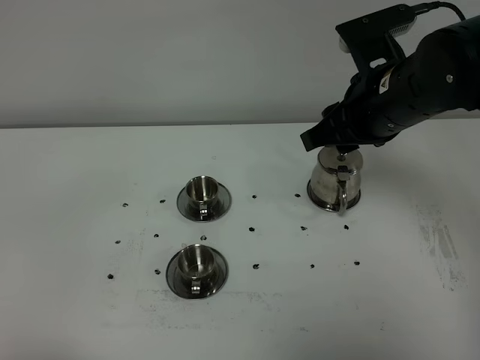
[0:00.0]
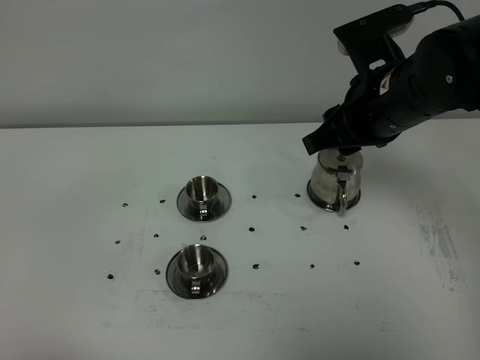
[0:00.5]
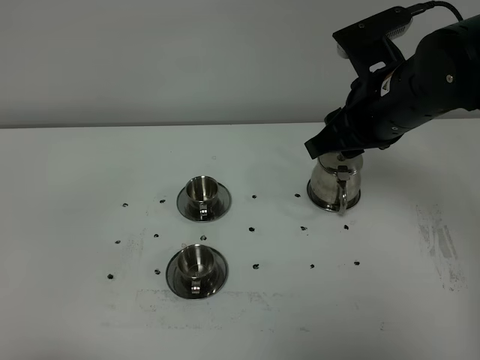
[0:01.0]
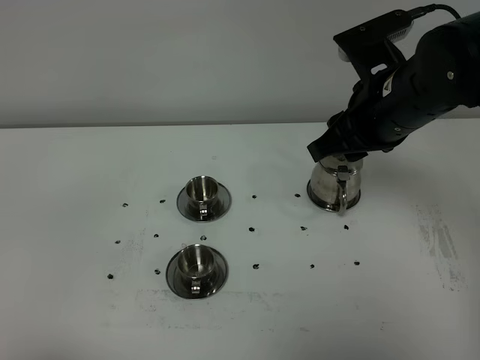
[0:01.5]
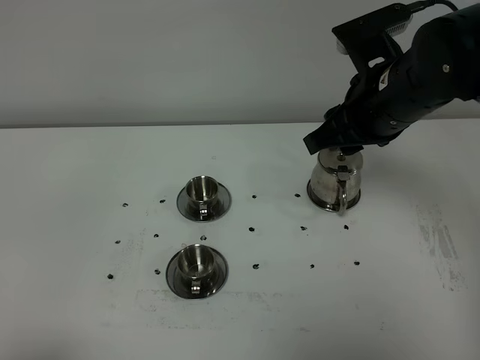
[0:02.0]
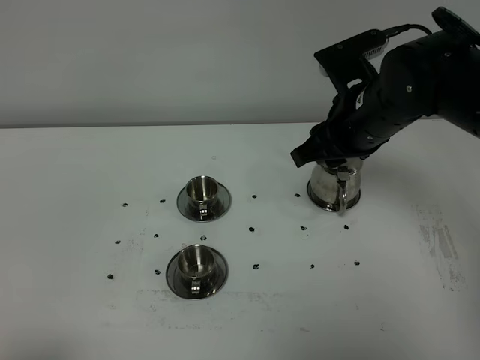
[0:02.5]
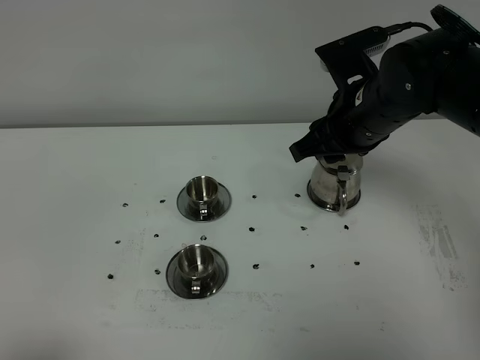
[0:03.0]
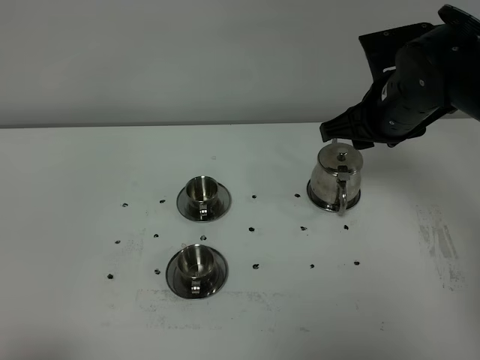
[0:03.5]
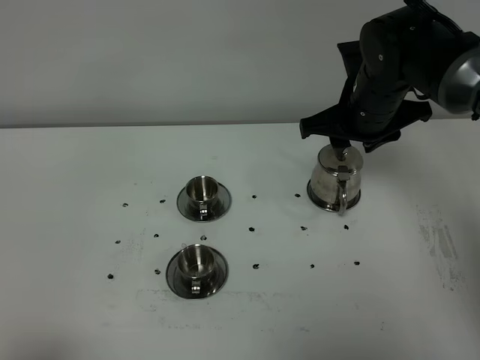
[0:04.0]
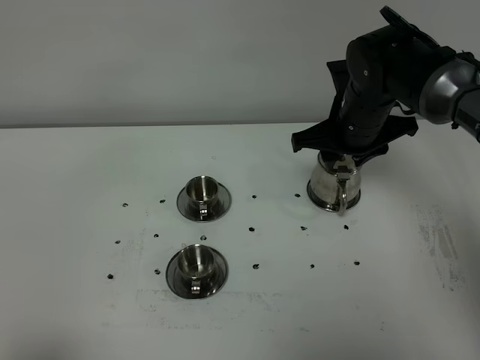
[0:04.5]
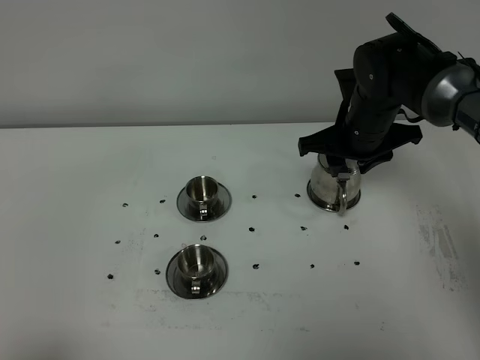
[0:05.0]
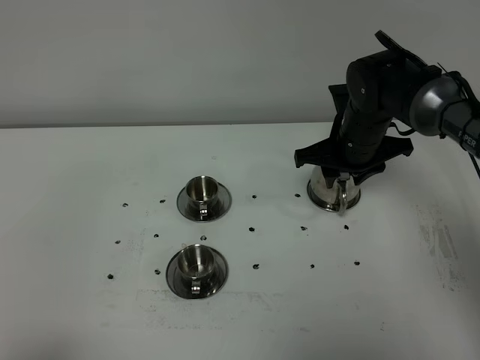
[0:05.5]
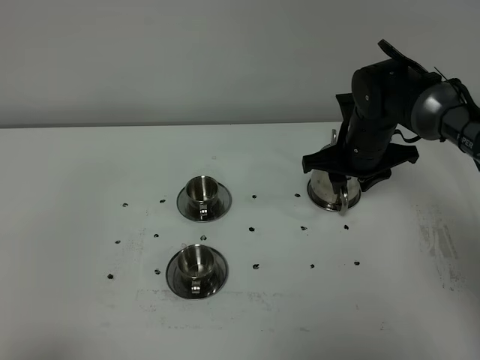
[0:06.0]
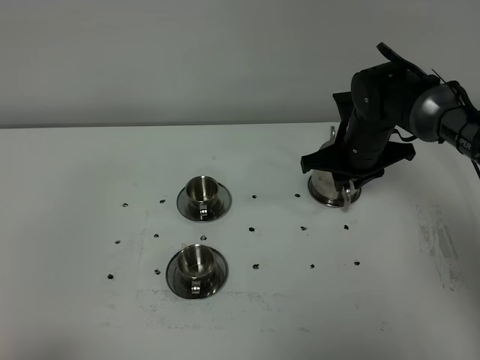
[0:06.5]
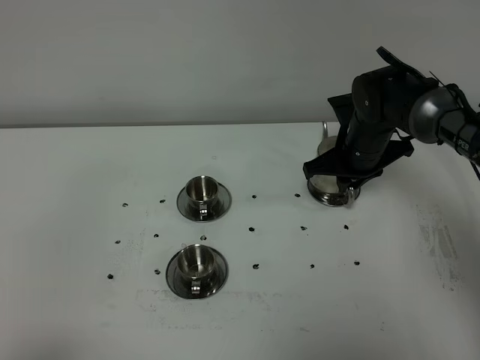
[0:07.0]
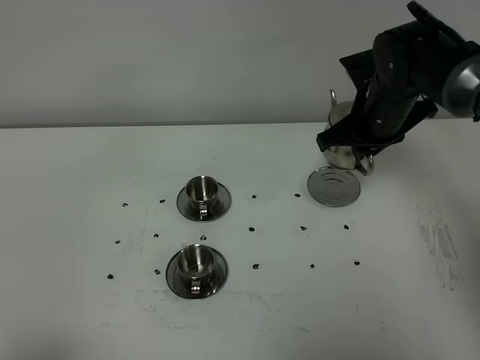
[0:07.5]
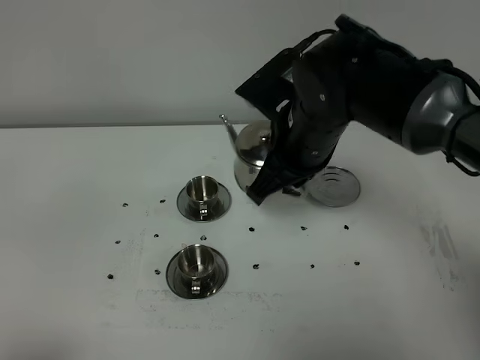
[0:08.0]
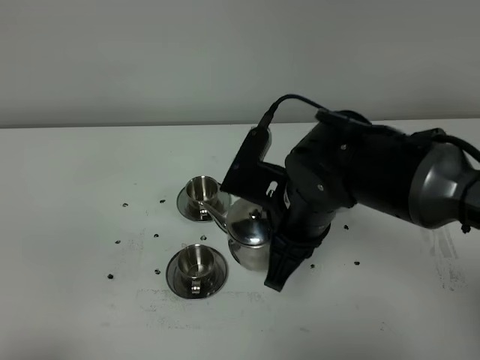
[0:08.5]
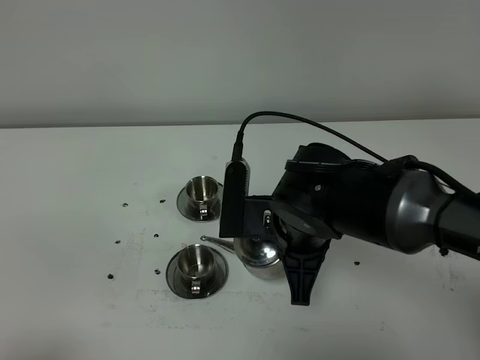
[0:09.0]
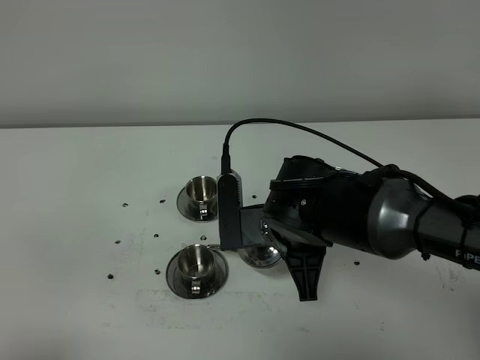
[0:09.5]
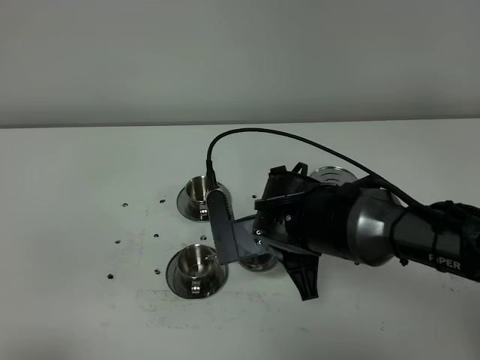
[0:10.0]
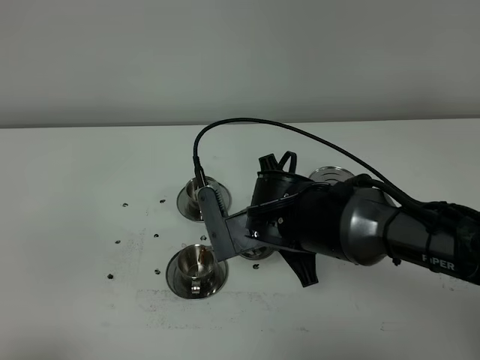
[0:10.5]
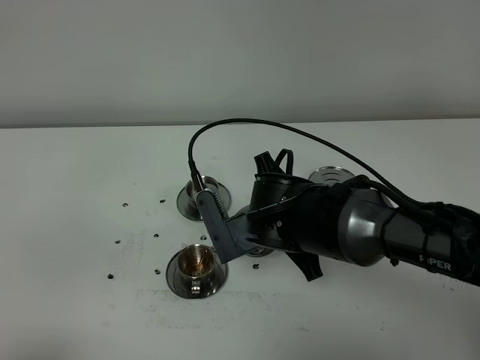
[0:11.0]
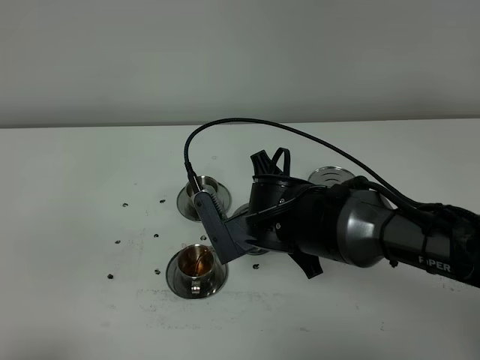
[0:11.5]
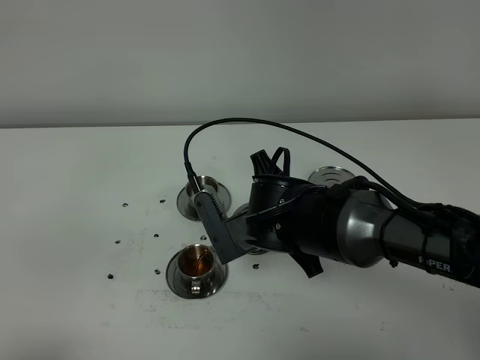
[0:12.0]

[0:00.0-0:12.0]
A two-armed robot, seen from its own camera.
Task of the whole recording: grasp the stainless steel teapot and pour the tea into the two stainless steel teacups one by one, put the stainless steel teapot back in its original place.
Step, 0:00.0 to 0:07.0: Pick up the teapot with the right gripper.
0:00.0 to 0:02.0: The grippers make only small movements.
0:02.0 to 0:04.0: The right gripper moves forward and downward, some 10 cm.
0:04.0 to 0:06.0: The right gripper shifts approximately 10 cm downward.
0:06.0 to 0:08.0: The right gripper shifts roughly 20 cm upward, to the left and backward, and closes its fingers.
0:08.0 to 0:10.0: The right gripper shifts some 10 cm downward.
0:10.0 to 0:12.0: There are only small adjustments of the grippers.

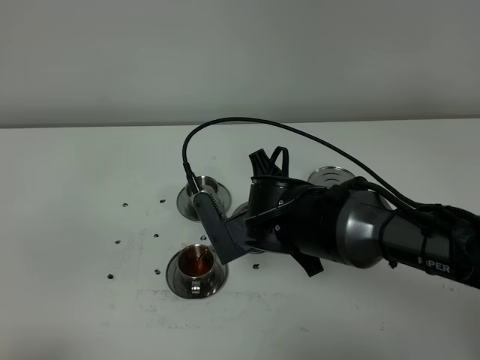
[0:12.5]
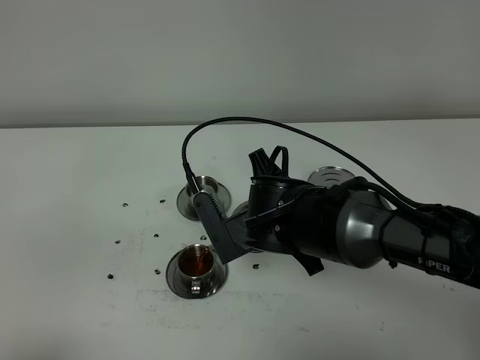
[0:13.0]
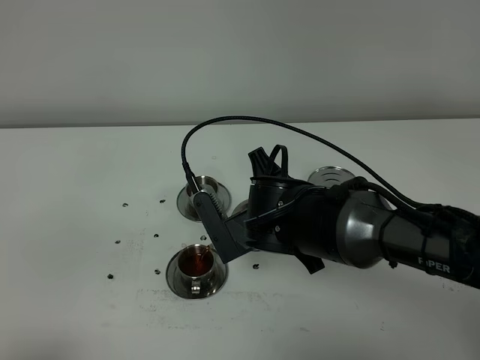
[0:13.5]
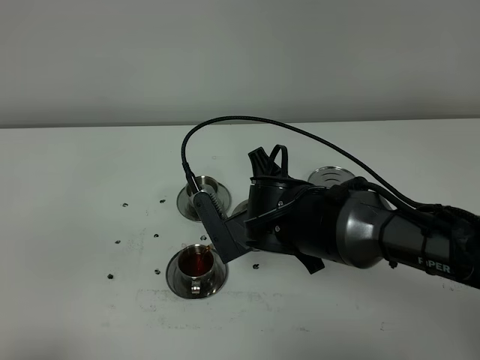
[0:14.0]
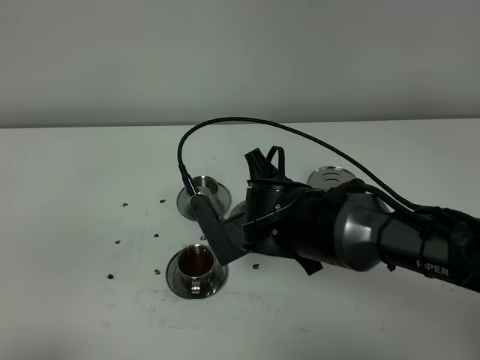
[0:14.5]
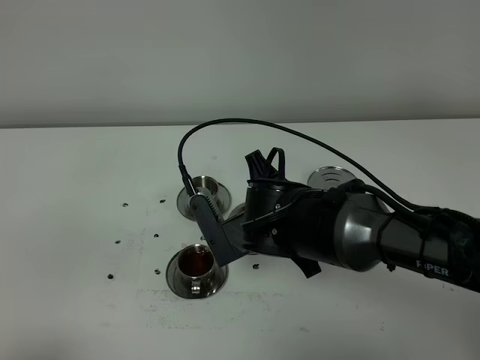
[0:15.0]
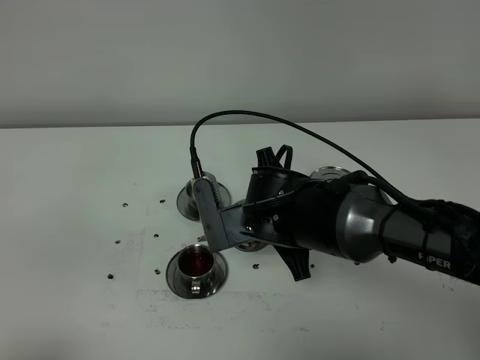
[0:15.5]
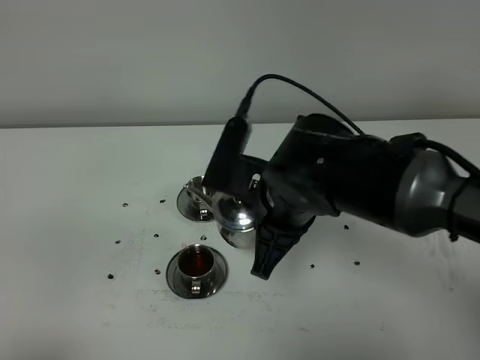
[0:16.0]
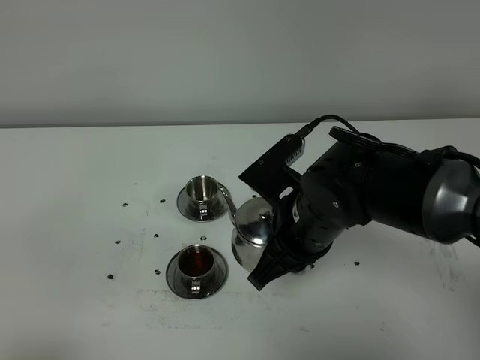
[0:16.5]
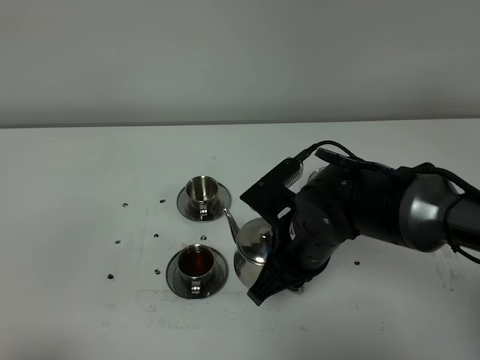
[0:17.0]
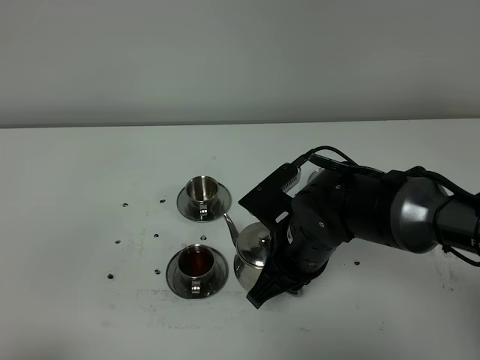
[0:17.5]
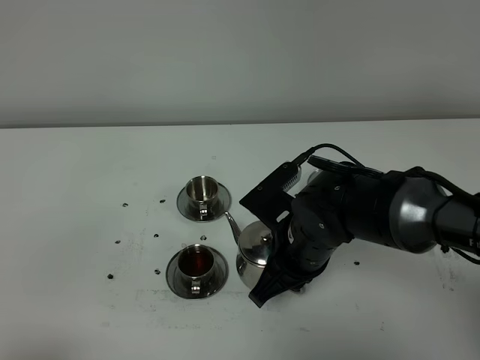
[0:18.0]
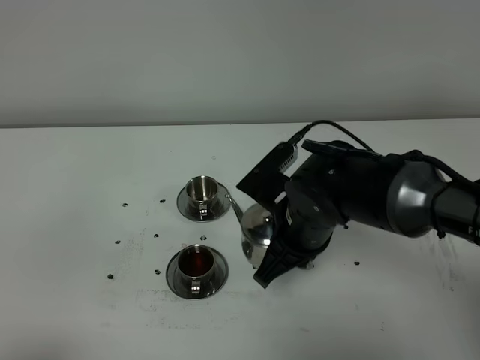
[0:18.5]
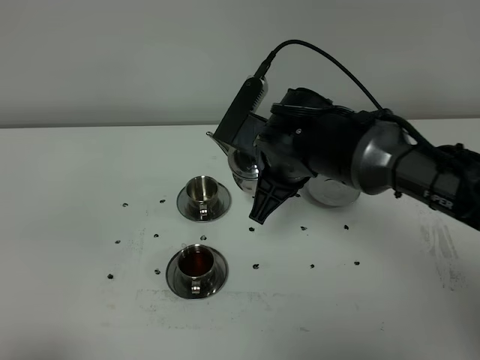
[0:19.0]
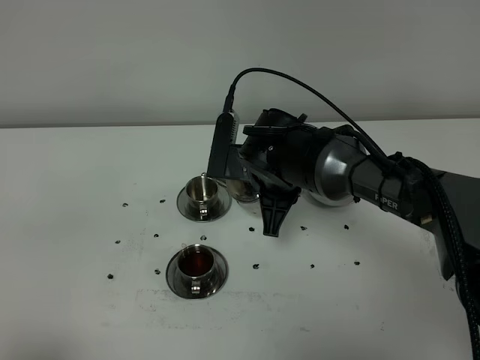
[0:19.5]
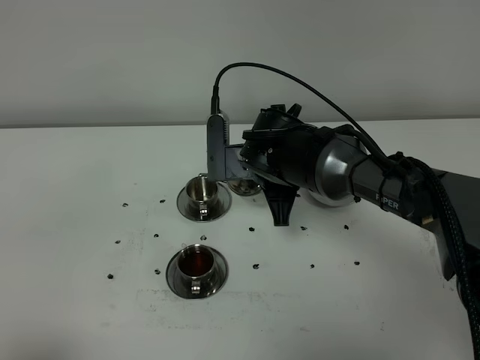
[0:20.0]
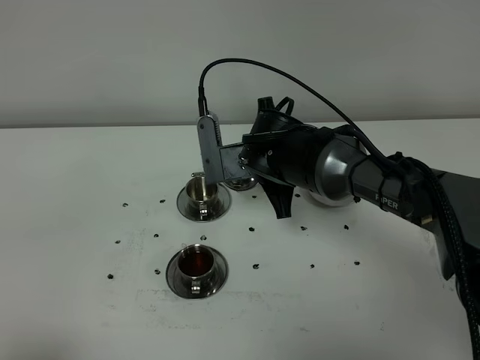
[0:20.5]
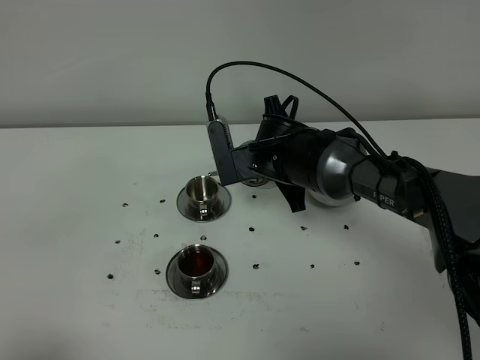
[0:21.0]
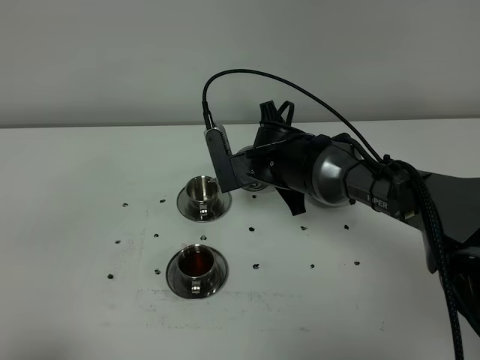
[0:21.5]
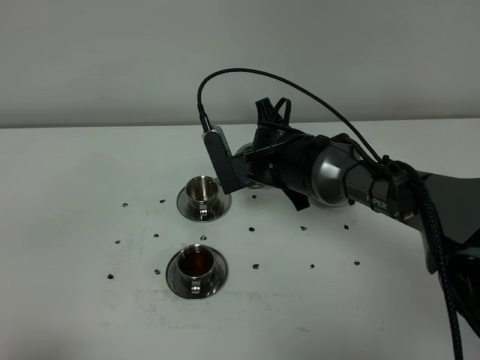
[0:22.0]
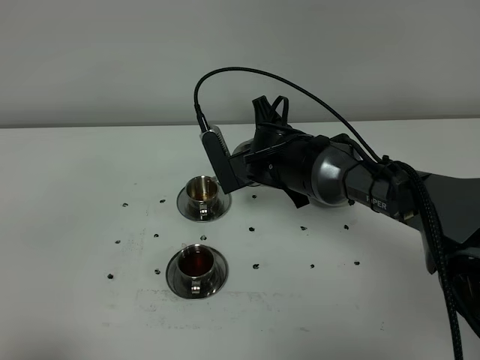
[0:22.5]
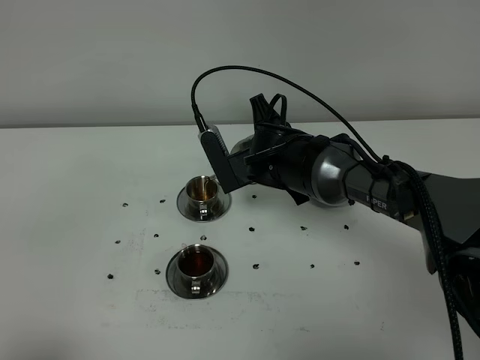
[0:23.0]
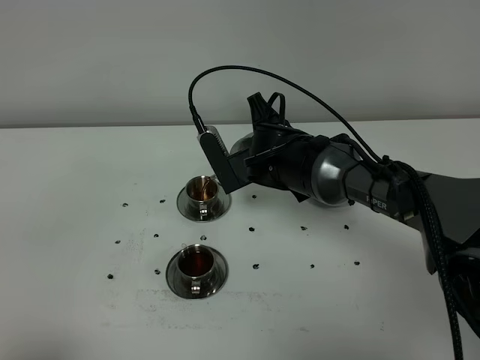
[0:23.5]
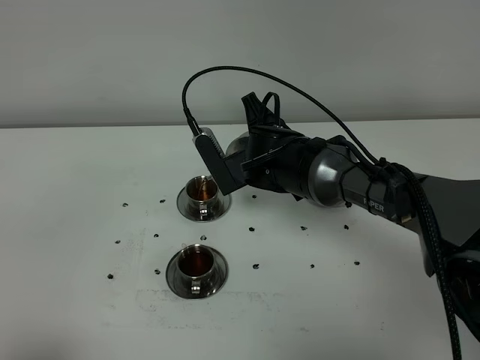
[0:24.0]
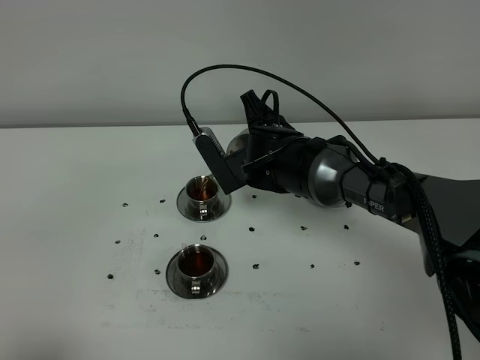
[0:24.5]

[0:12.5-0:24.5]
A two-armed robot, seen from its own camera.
Task of the whole recording: grasp the stainless steel teapot and pour the tea into the two stainless steel teacups one by one, put the stainless steel teapot back in its original place.
0:12.5 to 0:14.5: Both grippers stay about where they are.
0:16.5 to 0:18.5: The grippers make only small movements.
0:18.5 to 0:20.5: The right gripper heads forward, covering approximately 10 cm.
0:20.5 to 0:22.5: The grippers stay close to where they were, moving slightly.
0:22.5 to 0:24.5: The grippers stay close to where they were, moving slightly.

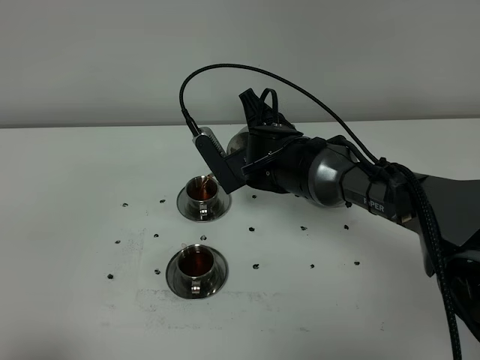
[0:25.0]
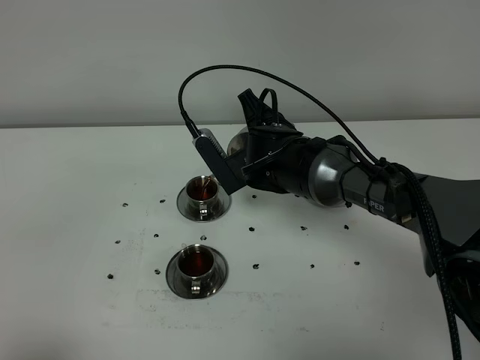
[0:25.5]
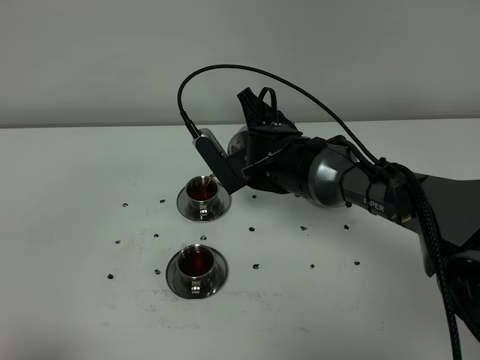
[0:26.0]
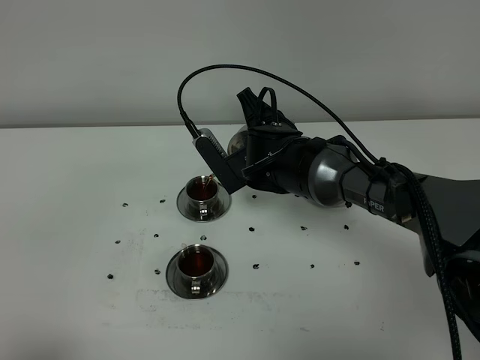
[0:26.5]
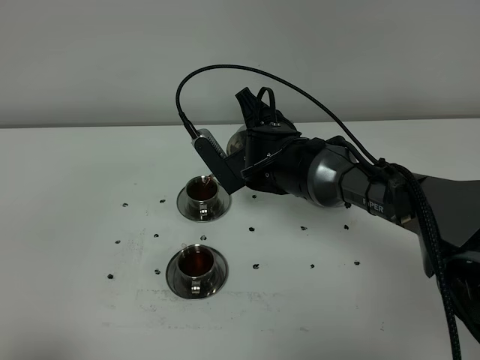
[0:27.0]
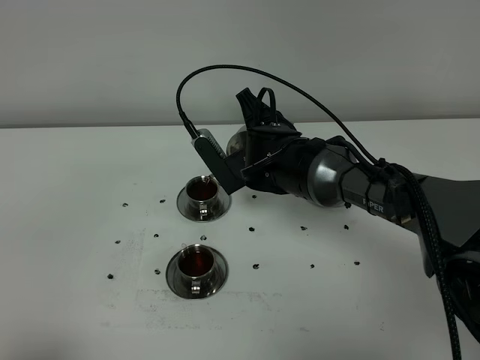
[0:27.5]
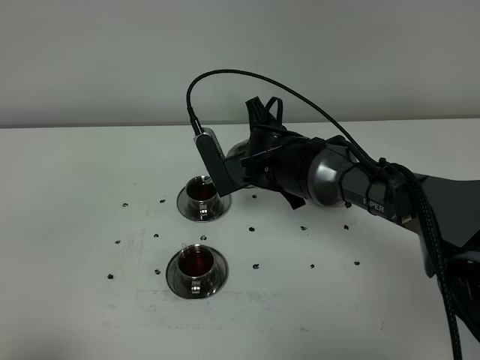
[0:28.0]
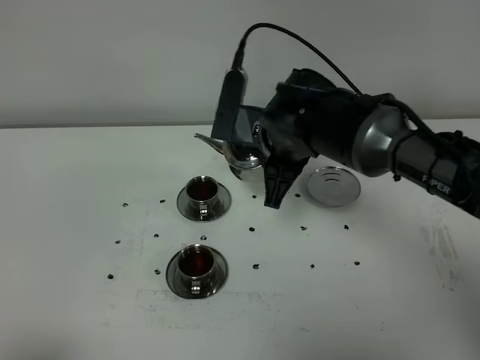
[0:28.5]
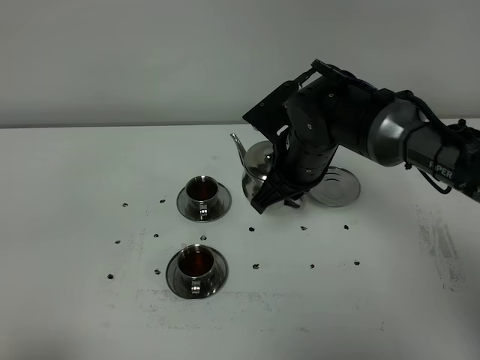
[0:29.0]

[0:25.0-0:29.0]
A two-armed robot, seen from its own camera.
Task of the whole recording: grasp the stainless steel teapot and pour the tea into the two stainless steel teacups one by one, put the stainless steel teapot back in its original place.
Step, 0:25.0 to 0:28.0: Pour tea into the teacup with the right gripper.
0:25.0 to 0:27.0: Both grippers stay about where they are.
0:27.0 to 0:29.0: The right gripper ends up roughly 5 cm from where it was.
